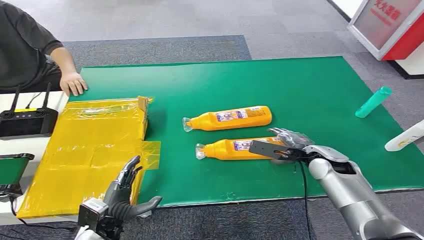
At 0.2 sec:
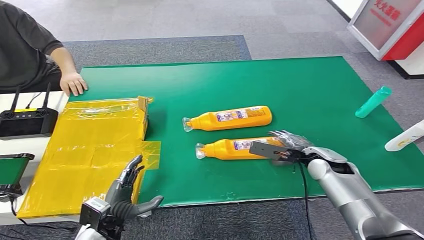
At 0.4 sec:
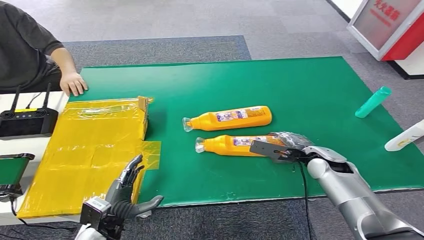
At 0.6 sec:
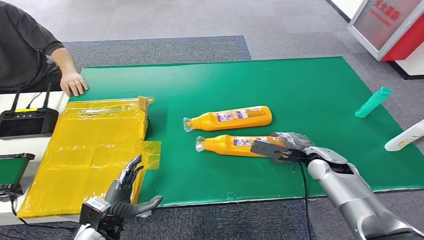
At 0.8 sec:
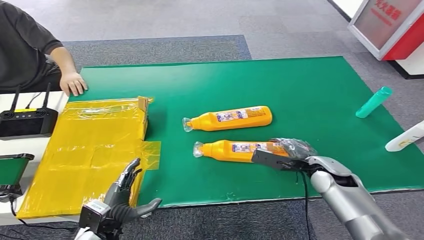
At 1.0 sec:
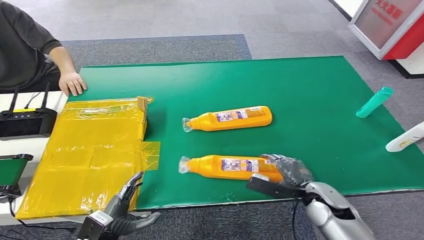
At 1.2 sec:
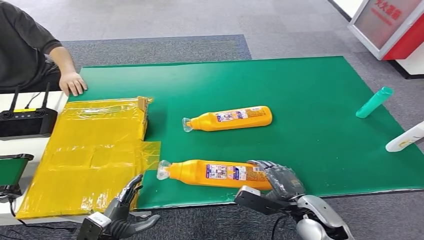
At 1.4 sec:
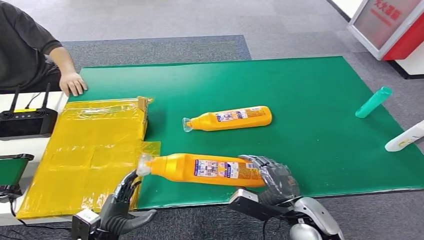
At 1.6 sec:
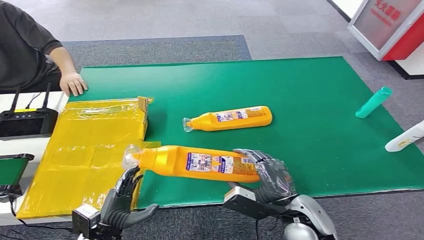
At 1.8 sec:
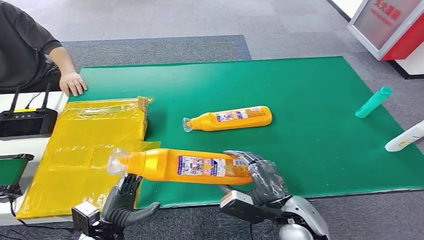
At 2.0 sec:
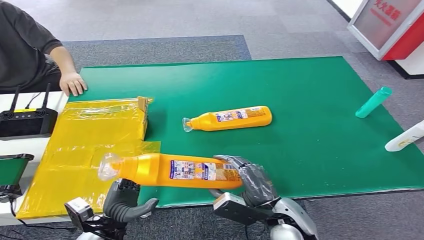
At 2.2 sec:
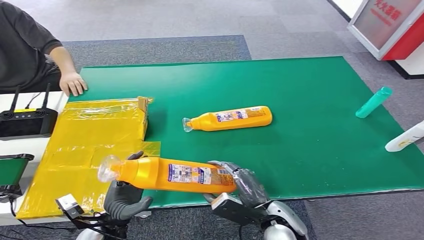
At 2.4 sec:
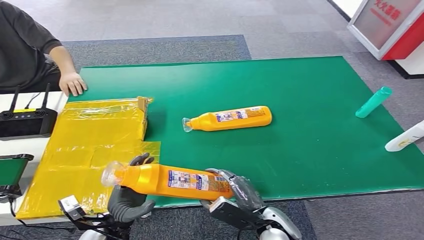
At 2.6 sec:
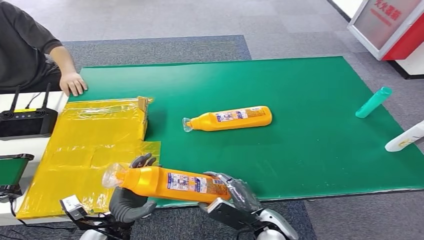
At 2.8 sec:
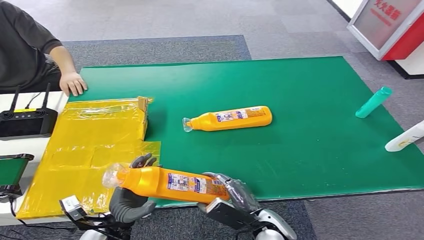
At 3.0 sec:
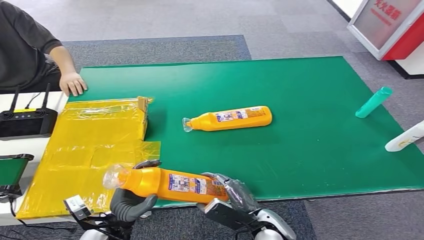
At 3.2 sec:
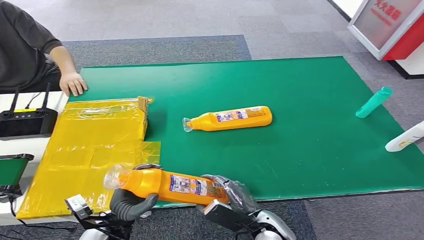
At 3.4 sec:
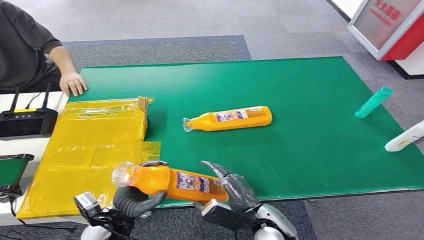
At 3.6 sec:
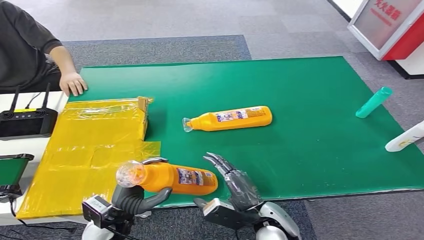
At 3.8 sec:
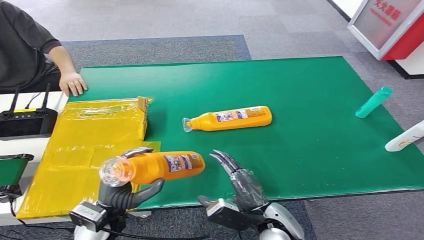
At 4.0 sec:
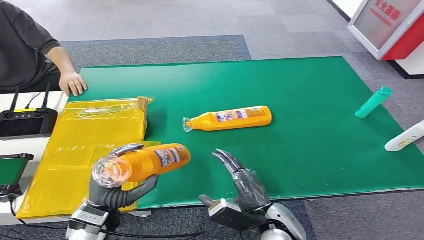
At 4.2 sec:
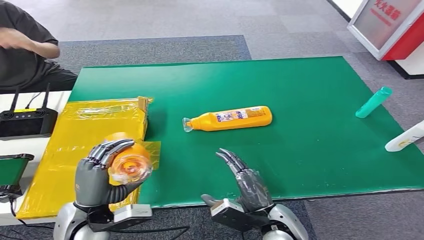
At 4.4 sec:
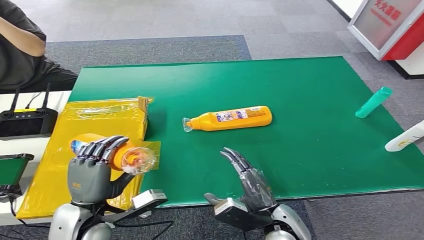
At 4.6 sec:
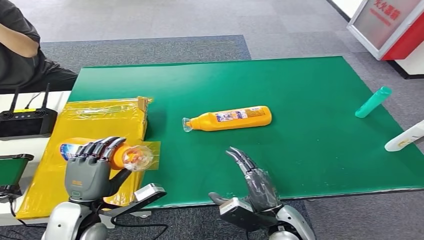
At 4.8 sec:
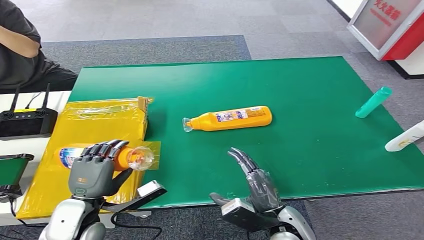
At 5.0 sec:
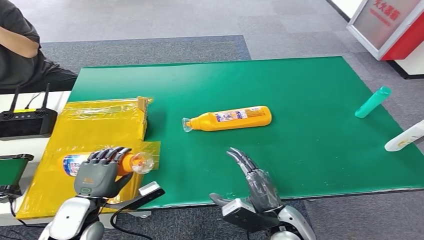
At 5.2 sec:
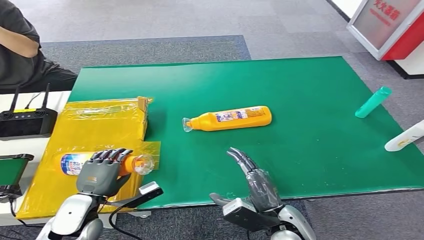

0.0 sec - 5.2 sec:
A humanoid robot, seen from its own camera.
Step, 0.0 sec - 1.4 sec: Pick up the bottle from the table.
Step, 3.6 sec - 5.2 sec: Turn the bottle to the front side.
1.8 sec - 3.4 sec: The right hand shifts roughly 5 cm downward.
3.4 sec - 5.2 sec: The left hand travels to the left by roughly 5 cm.

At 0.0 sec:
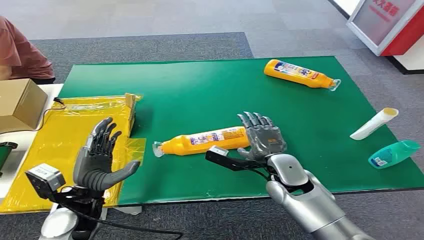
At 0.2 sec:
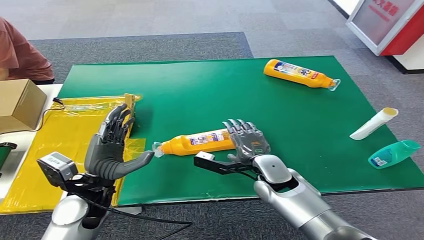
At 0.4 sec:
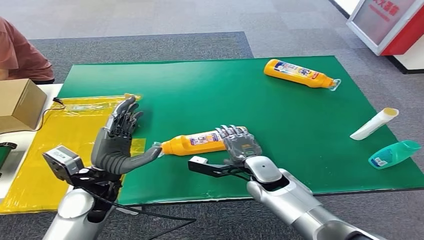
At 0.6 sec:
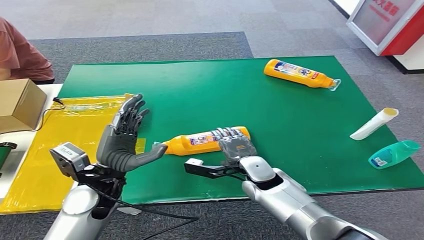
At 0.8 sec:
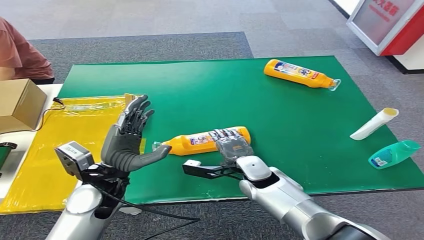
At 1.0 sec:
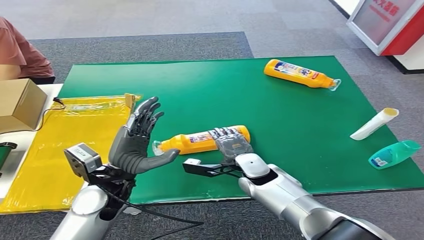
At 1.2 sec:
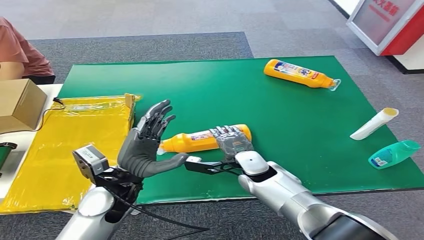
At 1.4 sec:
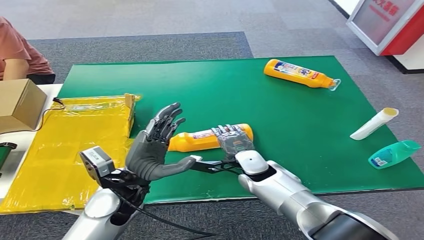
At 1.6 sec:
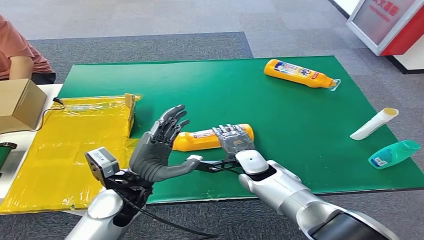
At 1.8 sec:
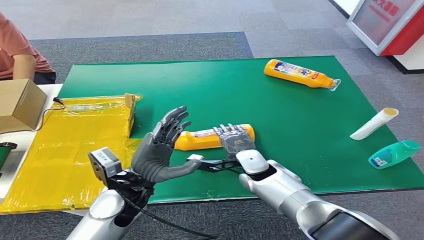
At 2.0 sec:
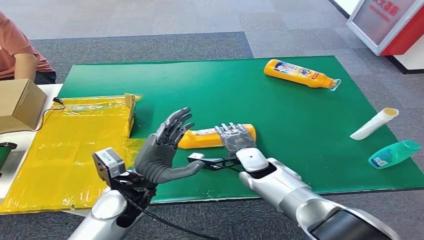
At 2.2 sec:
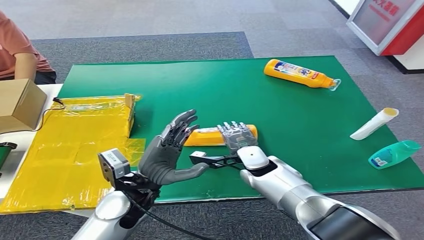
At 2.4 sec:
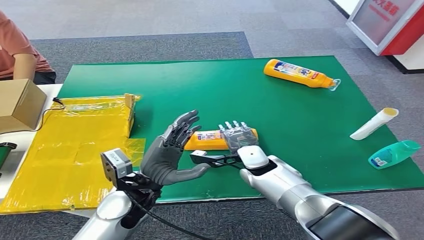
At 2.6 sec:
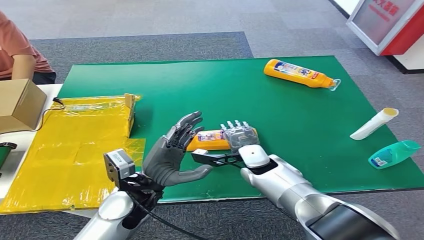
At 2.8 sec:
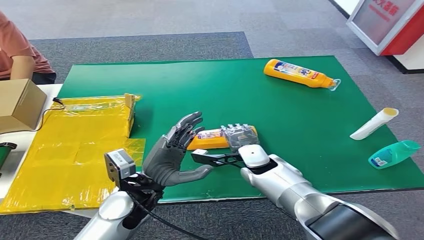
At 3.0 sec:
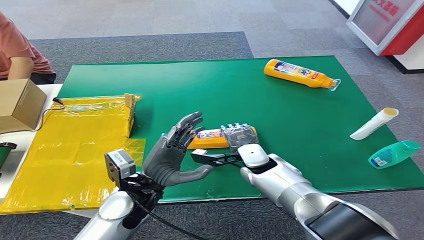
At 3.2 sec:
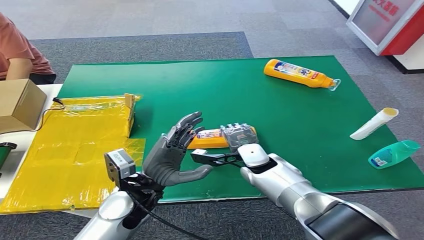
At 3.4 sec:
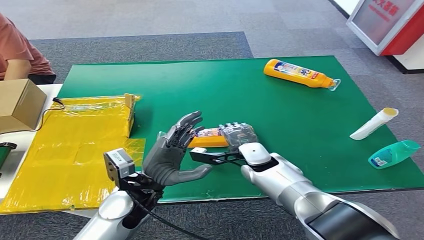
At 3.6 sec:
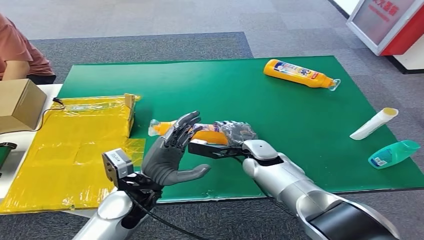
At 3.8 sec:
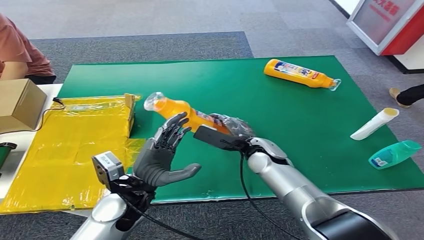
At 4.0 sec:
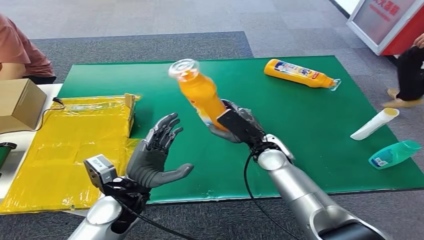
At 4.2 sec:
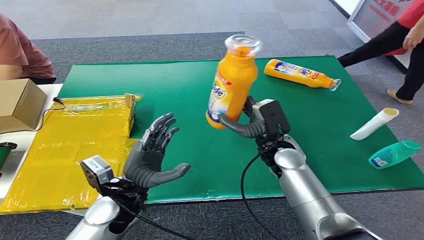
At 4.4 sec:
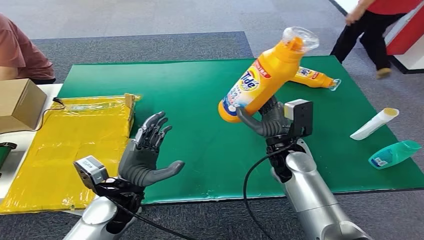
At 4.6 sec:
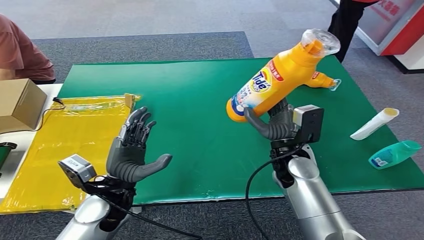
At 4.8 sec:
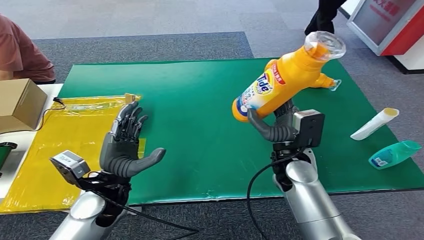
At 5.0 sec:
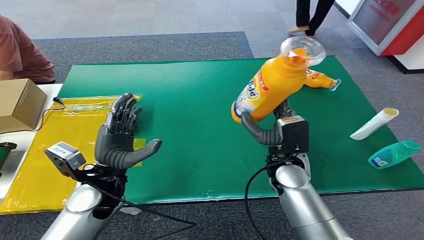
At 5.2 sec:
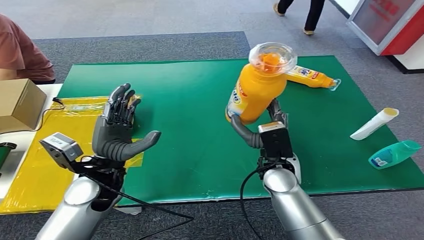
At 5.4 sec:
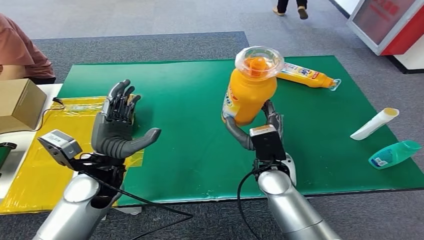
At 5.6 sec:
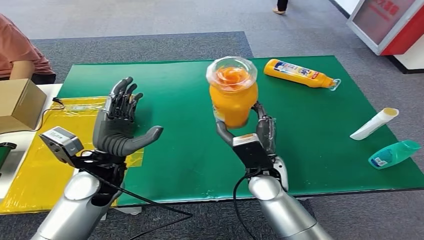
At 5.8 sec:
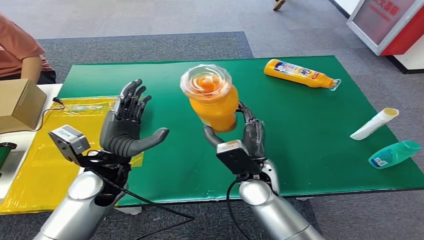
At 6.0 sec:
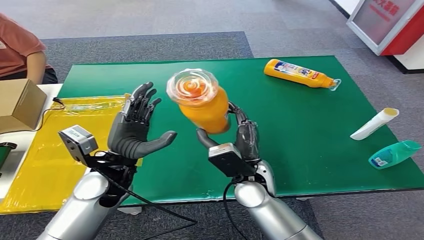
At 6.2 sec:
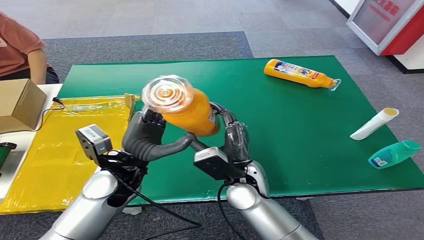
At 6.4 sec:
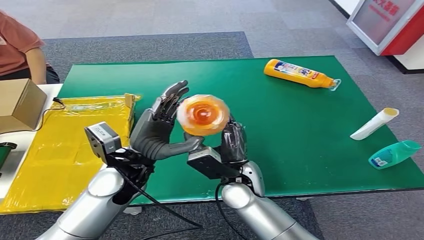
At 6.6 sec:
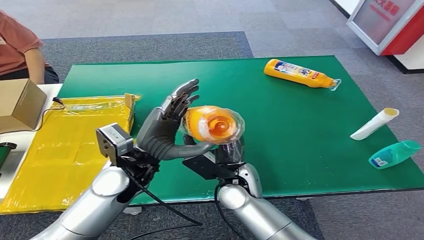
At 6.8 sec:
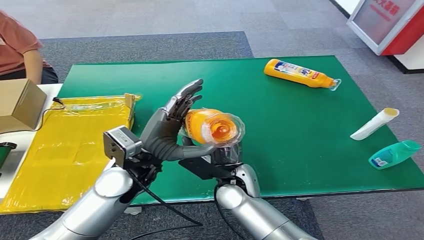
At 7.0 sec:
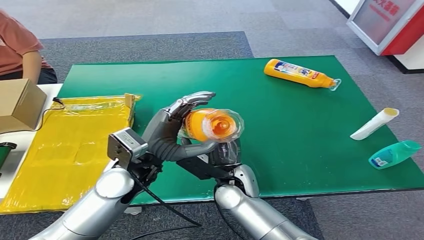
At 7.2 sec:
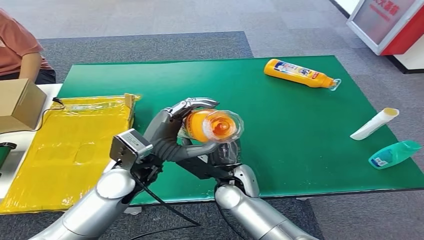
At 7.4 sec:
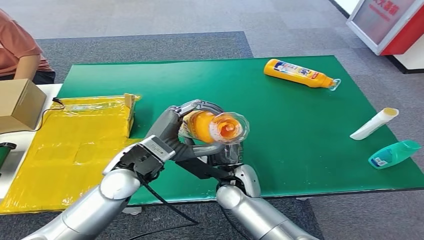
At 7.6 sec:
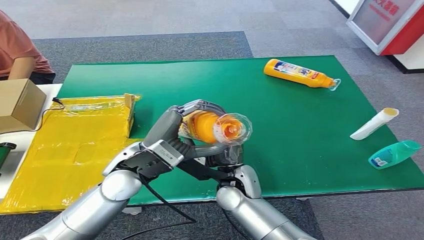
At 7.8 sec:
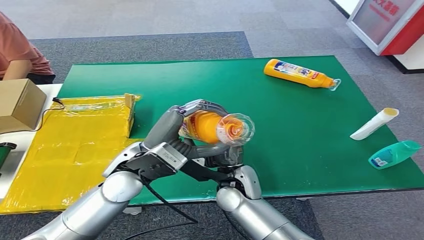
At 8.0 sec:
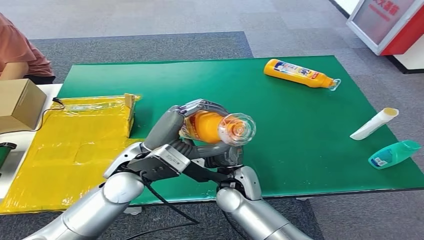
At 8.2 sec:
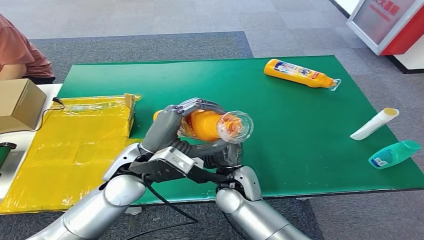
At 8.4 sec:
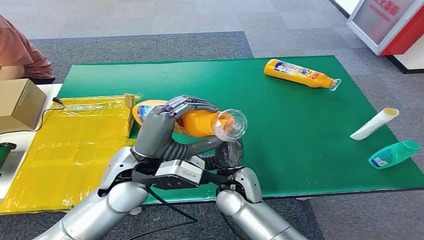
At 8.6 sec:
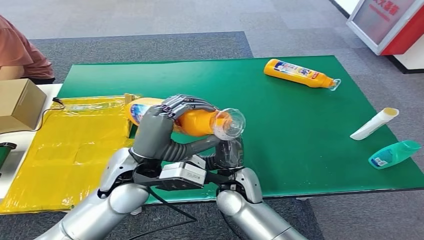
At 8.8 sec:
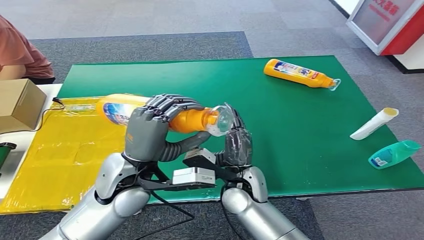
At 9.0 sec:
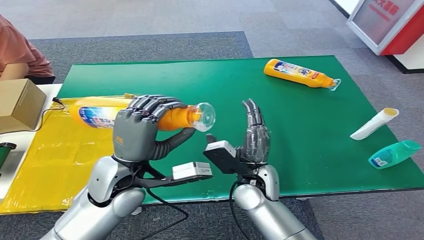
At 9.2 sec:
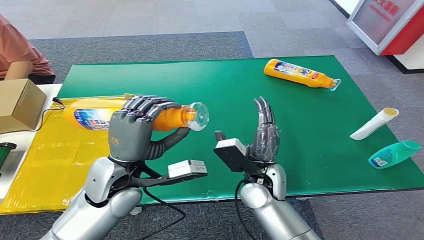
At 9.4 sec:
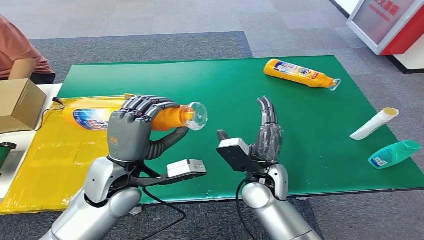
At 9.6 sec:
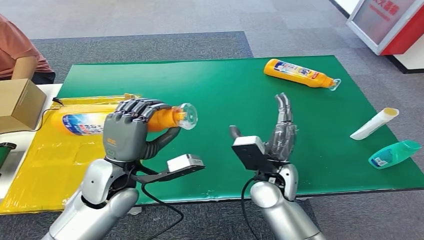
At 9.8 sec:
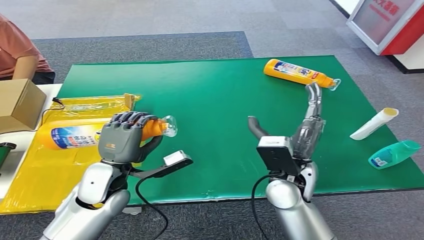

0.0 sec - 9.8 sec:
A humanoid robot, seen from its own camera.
Step, 0.0 sec - 4.0 sec: Pick up the bottle from the table.
1.4 sec - 2.8 sec: There are only small adjustments of the hands.

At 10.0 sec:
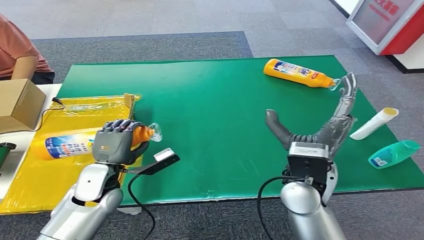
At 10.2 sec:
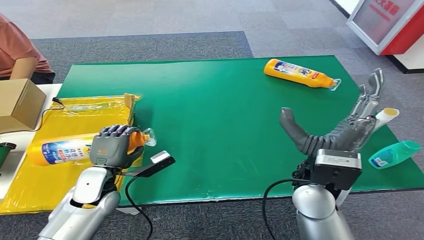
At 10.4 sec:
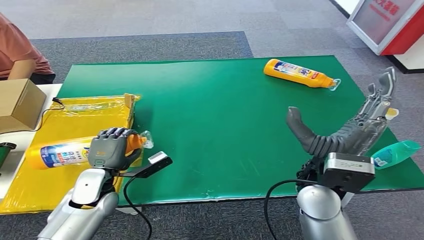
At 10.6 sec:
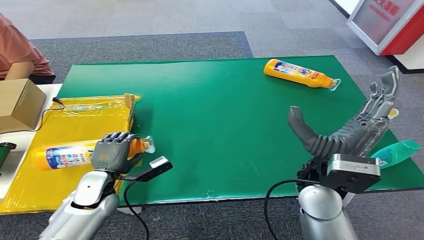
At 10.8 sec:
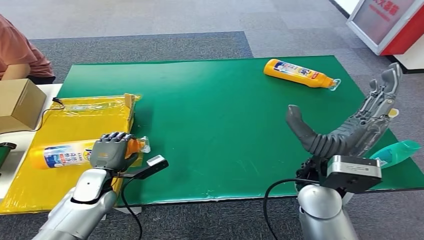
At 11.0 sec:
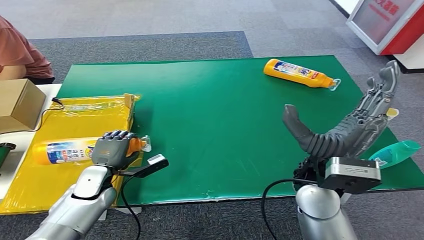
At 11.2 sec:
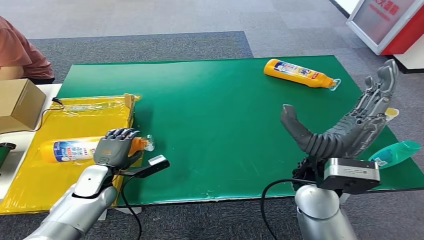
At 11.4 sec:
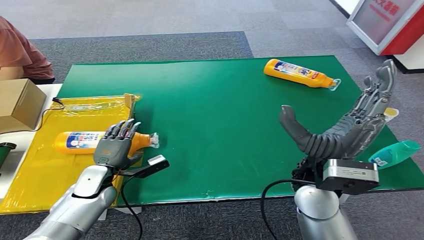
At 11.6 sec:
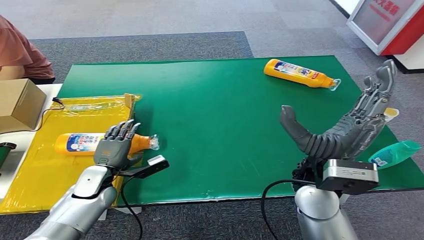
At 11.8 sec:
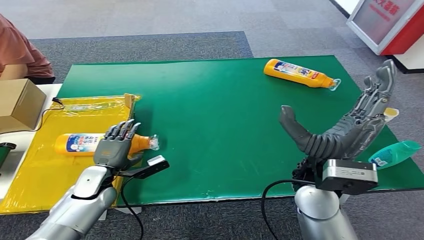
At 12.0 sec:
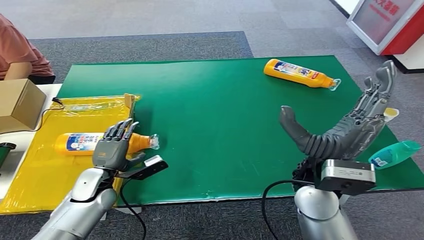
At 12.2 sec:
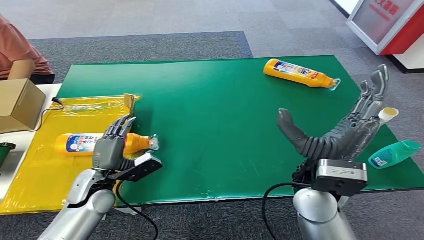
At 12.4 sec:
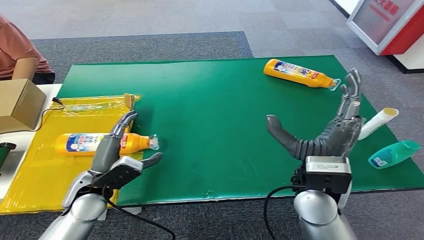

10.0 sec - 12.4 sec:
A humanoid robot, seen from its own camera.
Step, 10.0 sec - 12.4 sec: Turn the bottle to the front side.
10.0 sec - 11.2 sec: The left hand goes some 5 cm downward.
11.2 sec - 12.4 sec: The left hand moves upward, some 5 cm.
